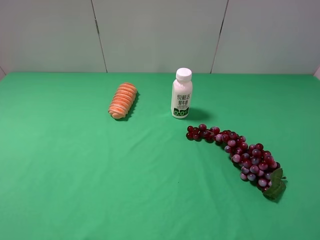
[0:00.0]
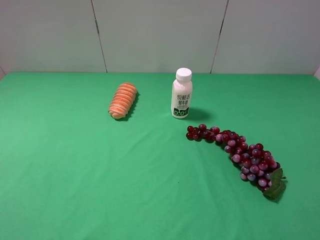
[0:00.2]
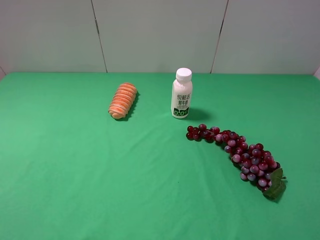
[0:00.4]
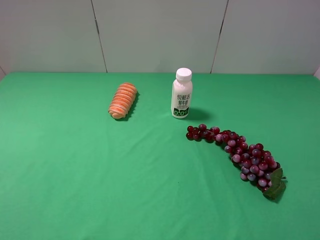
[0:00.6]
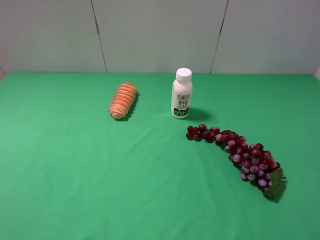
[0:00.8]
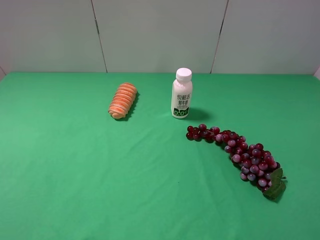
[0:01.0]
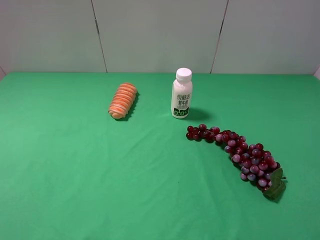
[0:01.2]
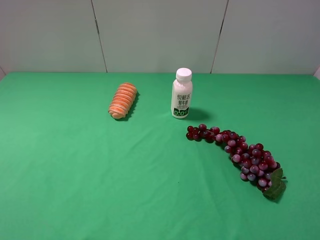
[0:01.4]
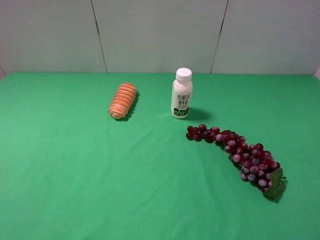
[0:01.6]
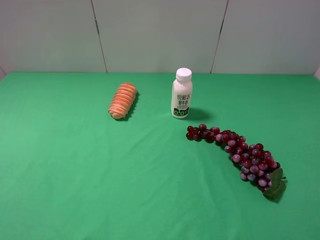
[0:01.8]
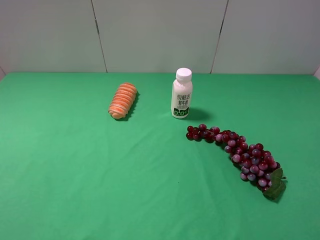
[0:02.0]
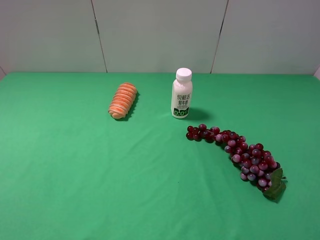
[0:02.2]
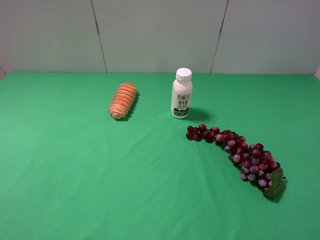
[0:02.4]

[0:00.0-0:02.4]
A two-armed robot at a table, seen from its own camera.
Task of the whole recording: use the left gripper to pick up the item and transfer it from the left gripper to the right gripper.
0:01.2 to 0:02.4: Both grippers stay about where they are.
